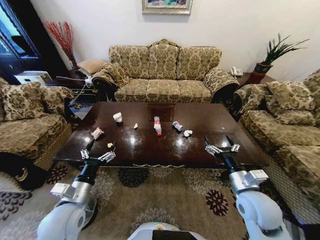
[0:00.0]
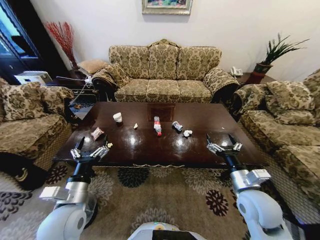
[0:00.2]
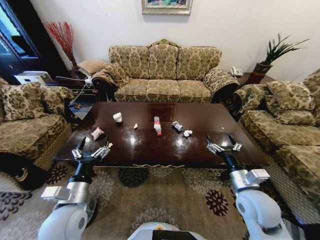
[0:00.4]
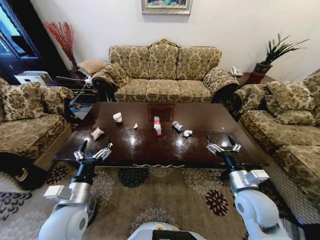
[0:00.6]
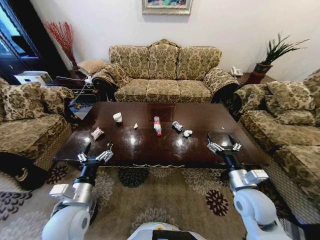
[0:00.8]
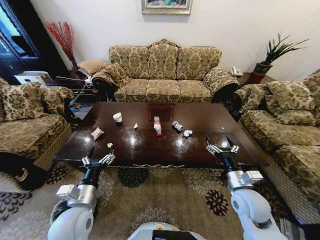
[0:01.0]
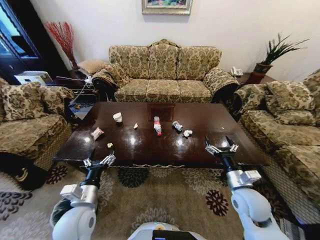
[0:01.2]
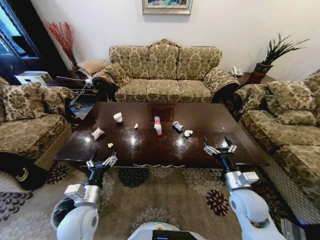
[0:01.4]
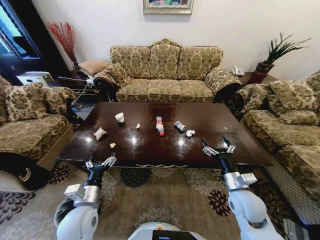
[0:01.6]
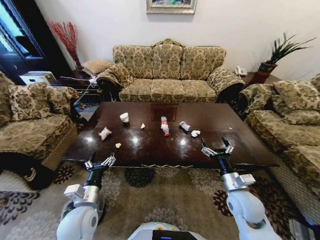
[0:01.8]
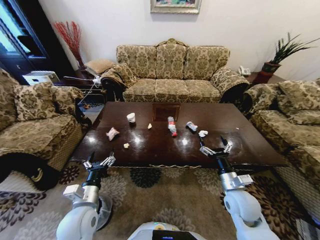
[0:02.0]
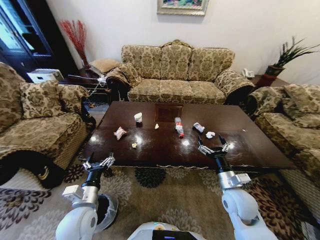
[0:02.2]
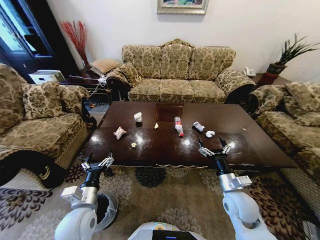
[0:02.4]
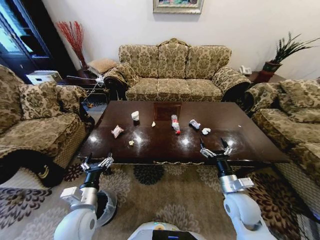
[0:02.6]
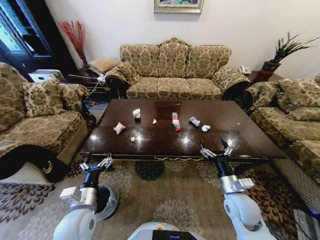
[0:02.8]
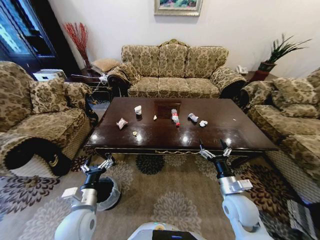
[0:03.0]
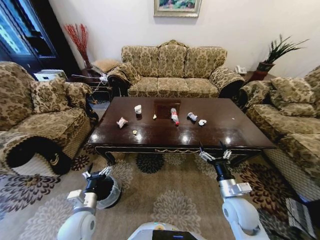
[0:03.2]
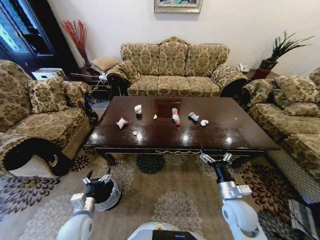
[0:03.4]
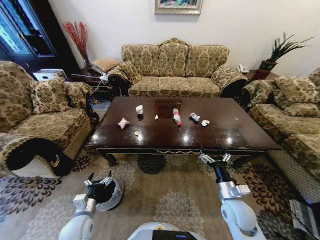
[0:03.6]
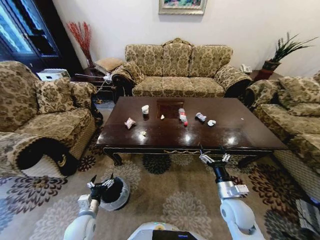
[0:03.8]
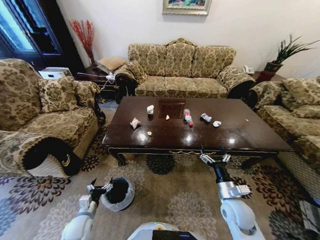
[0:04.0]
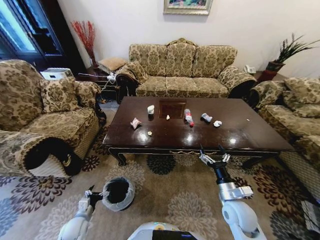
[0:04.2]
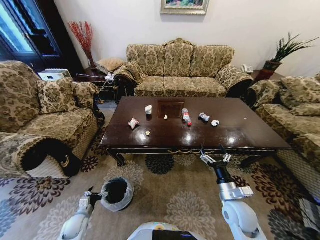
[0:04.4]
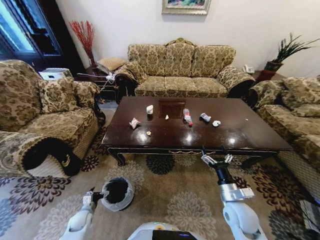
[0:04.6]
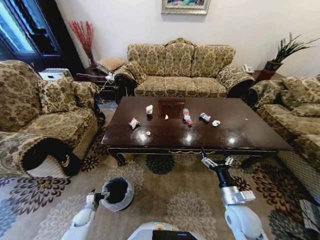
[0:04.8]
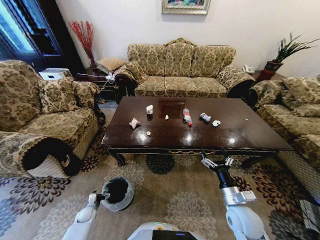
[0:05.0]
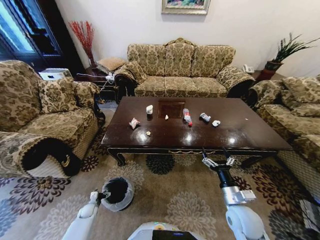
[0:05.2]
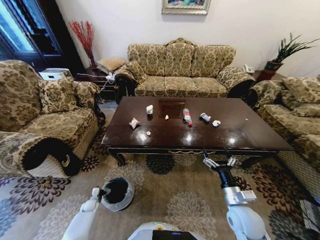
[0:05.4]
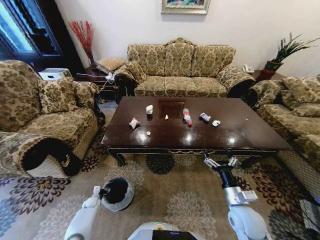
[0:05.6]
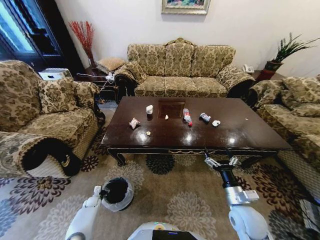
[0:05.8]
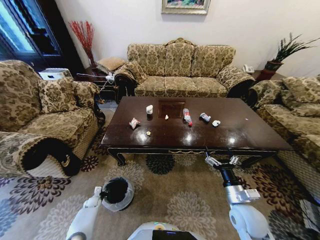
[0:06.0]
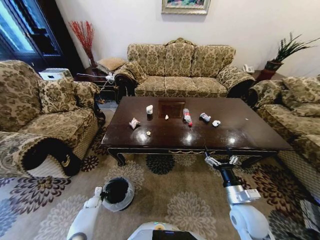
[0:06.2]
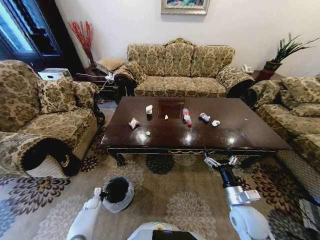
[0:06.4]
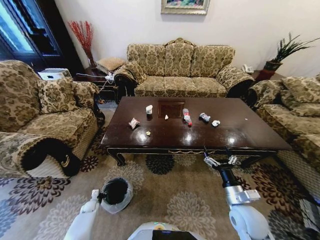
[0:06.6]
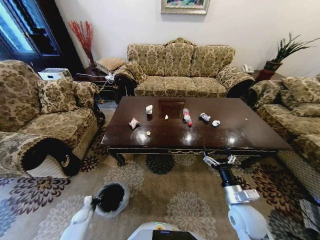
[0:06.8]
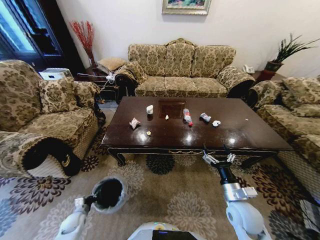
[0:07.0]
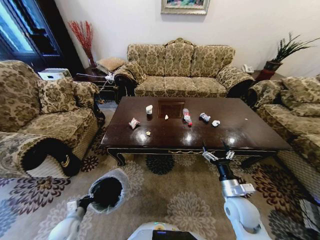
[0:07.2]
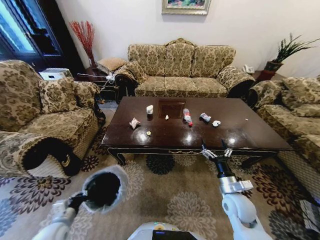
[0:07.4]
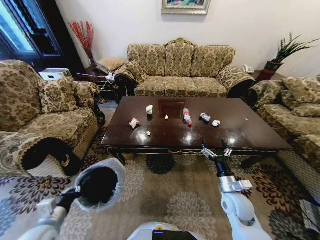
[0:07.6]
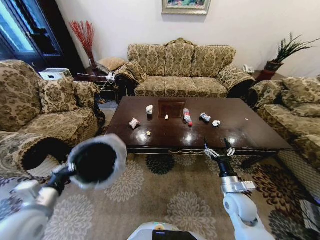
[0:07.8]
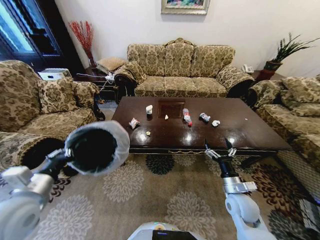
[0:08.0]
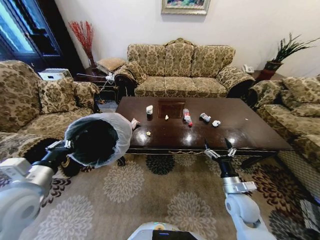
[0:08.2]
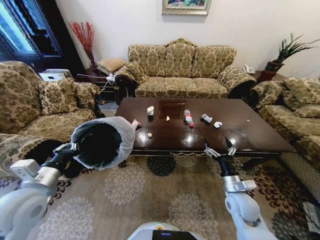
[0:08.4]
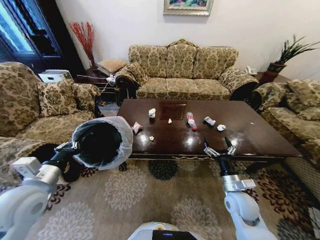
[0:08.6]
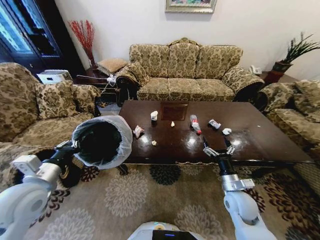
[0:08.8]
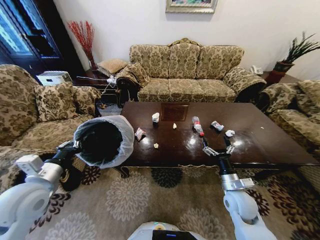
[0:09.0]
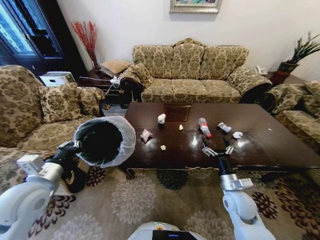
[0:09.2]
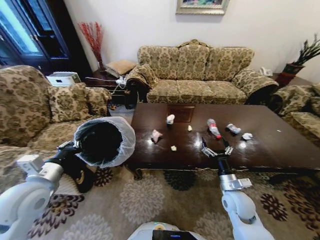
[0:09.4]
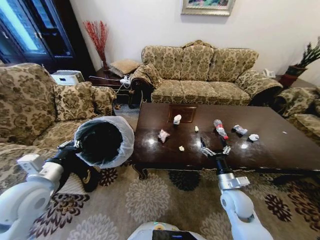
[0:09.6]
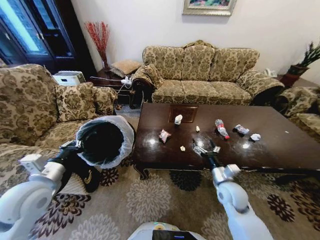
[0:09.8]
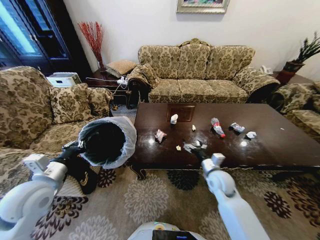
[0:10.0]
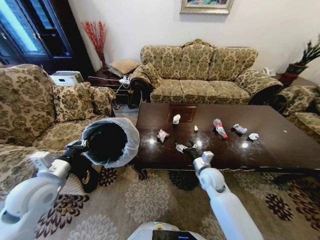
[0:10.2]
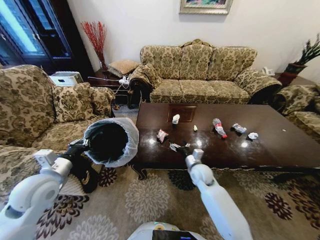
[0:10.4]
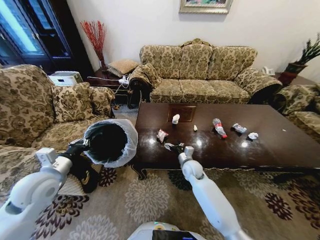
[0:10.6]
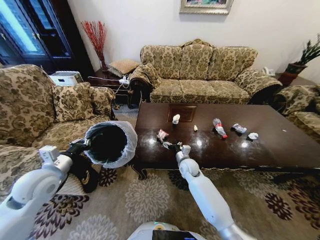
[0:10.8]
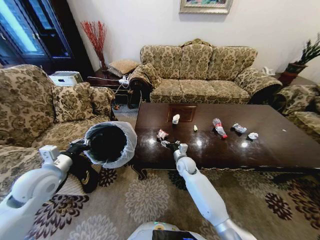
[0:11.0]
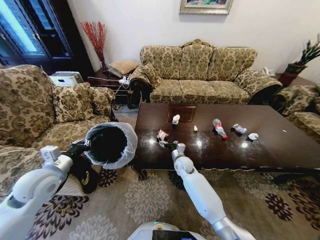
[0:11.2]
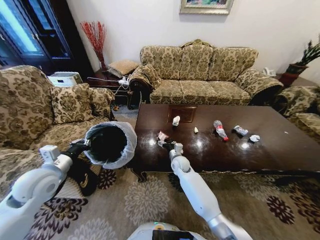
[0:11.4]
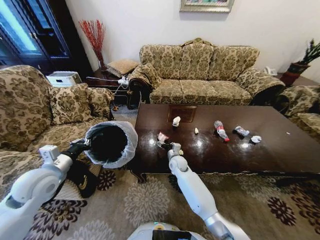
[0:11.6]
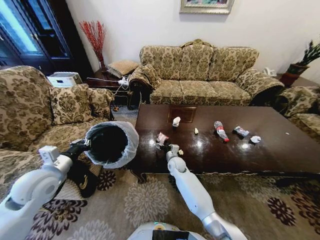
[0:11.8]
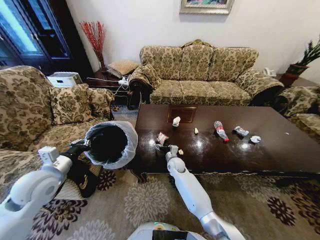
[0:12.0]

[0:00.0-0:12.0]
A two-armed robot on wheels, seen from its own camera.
Task of the whole recording: Move to the front of the table and place the trash on the table into the trash bin.
0:03.0 to 0:04.4: The left gripper goes about 25 cm downward and to the left.
0:04.4 to 0:06.0: The left gripper heads downward and forward, covering about 15 cm, and closes its fingers.
0:06.0 to 0:07.6: The left gripper heads upward and backward, covering roughly 35 cm, and closes its fingers.
0:07.6 to 0:09.0: The left gripper moves upward and forward, approximately 15 cm.
0:09.0 to 0:10.4: The right gripper heads forward and to the left, covering about 15 cm.
0:10.4 to 0:12.0: The right gripper is displaced to the left, forward and downward by some 15 cm.

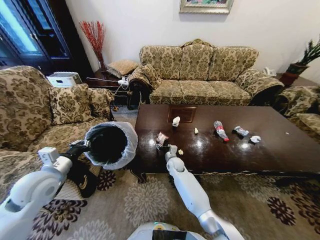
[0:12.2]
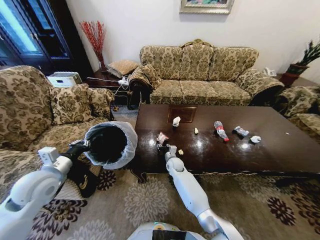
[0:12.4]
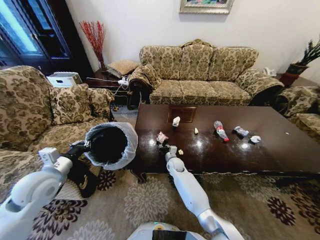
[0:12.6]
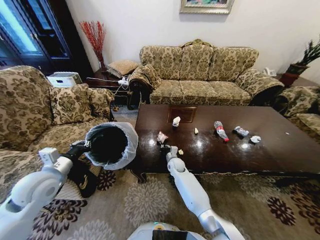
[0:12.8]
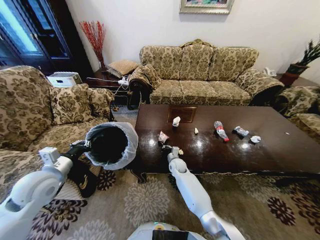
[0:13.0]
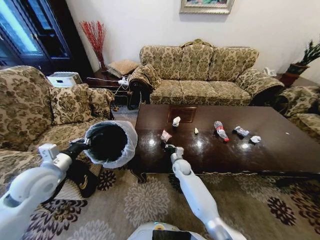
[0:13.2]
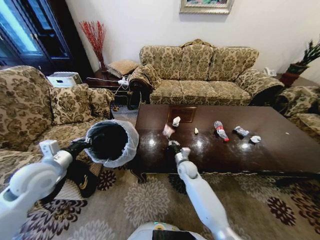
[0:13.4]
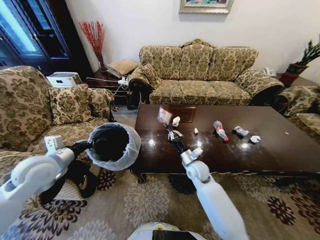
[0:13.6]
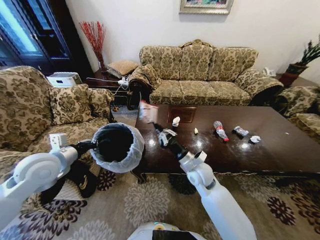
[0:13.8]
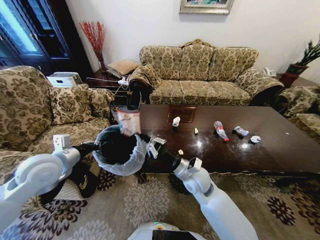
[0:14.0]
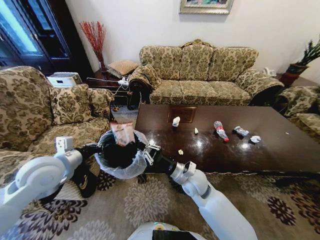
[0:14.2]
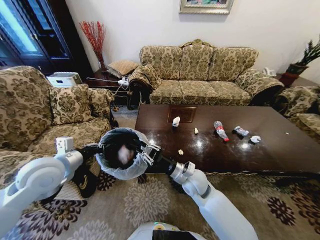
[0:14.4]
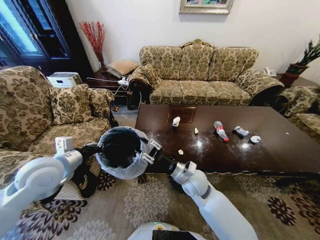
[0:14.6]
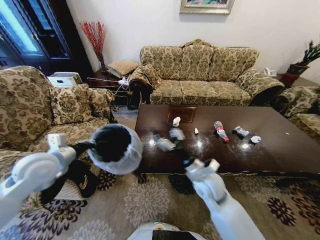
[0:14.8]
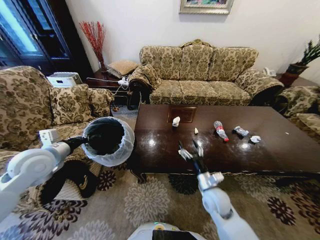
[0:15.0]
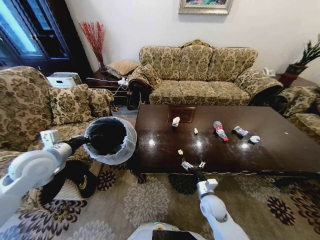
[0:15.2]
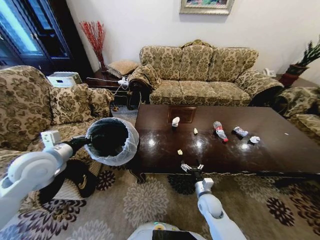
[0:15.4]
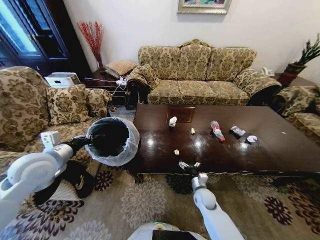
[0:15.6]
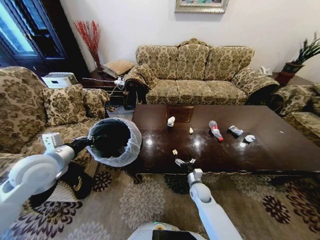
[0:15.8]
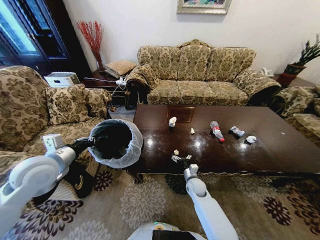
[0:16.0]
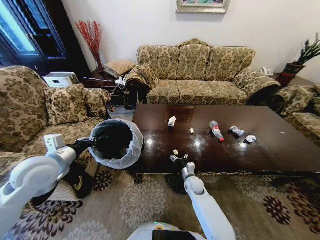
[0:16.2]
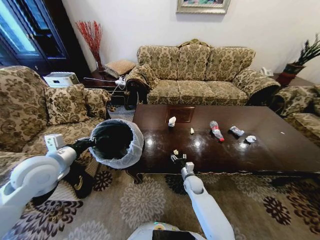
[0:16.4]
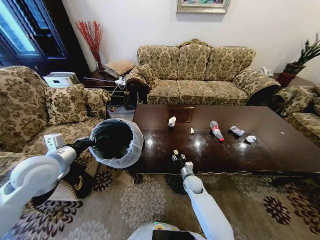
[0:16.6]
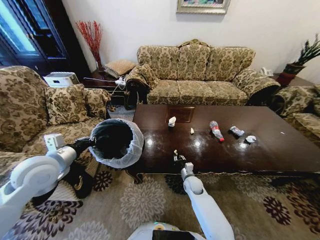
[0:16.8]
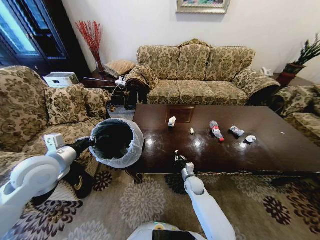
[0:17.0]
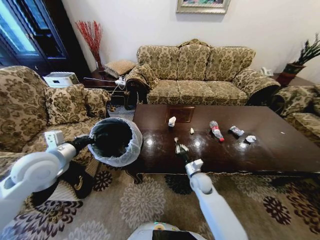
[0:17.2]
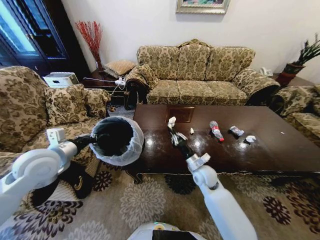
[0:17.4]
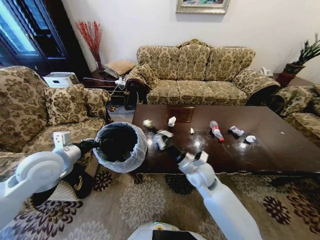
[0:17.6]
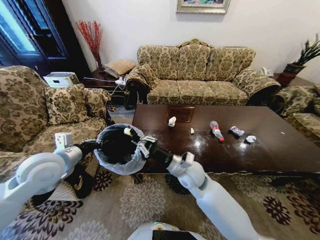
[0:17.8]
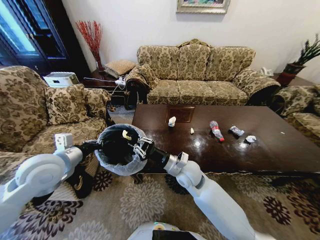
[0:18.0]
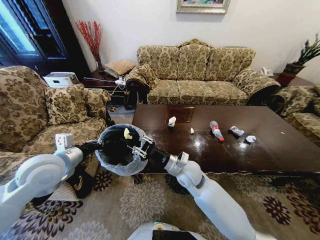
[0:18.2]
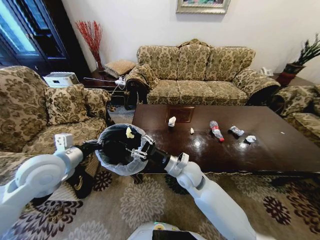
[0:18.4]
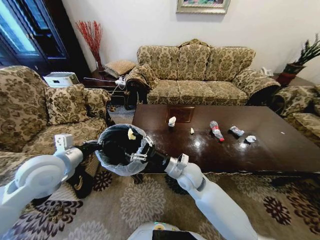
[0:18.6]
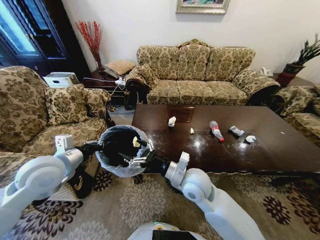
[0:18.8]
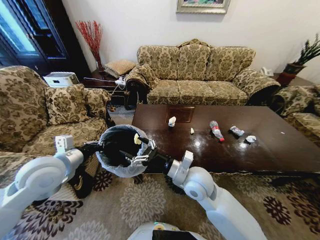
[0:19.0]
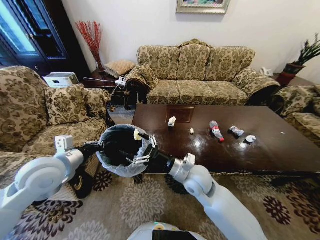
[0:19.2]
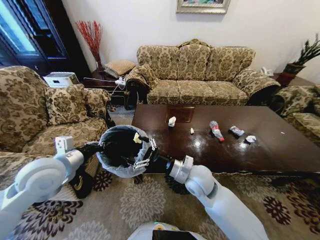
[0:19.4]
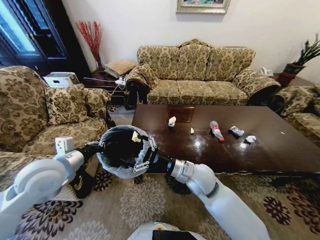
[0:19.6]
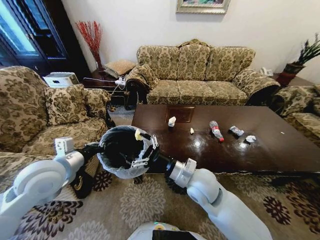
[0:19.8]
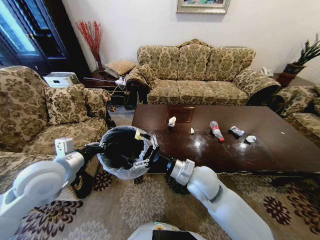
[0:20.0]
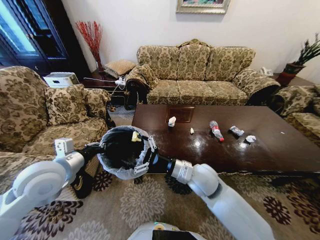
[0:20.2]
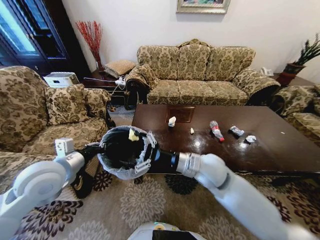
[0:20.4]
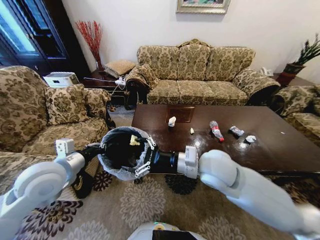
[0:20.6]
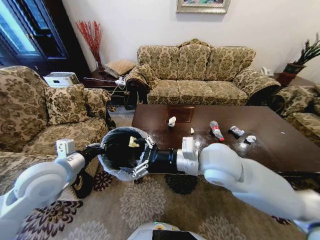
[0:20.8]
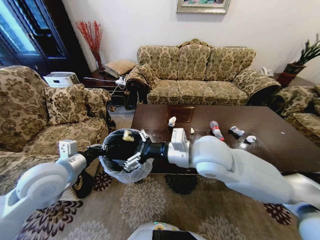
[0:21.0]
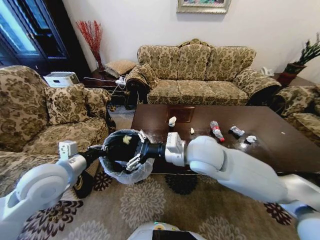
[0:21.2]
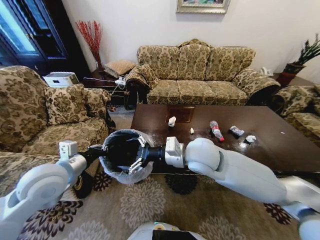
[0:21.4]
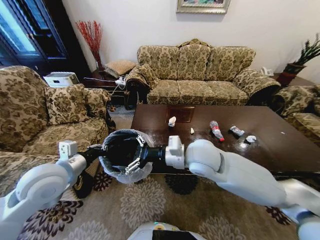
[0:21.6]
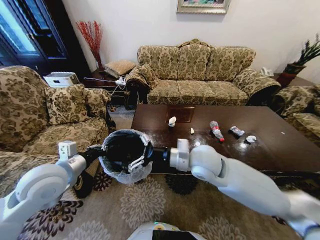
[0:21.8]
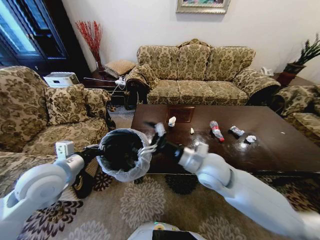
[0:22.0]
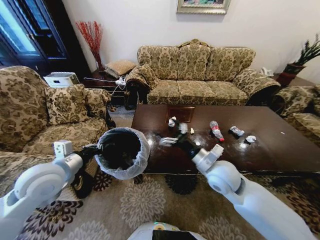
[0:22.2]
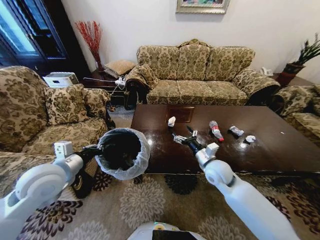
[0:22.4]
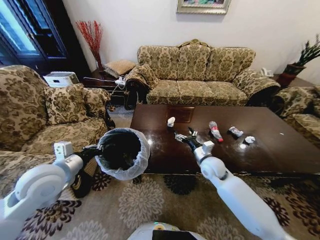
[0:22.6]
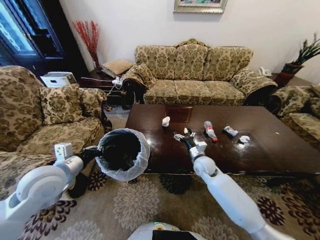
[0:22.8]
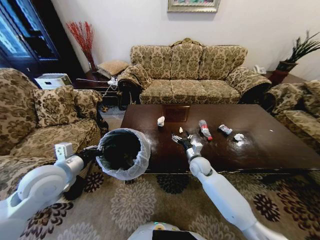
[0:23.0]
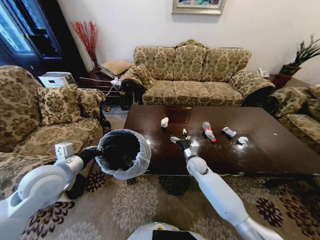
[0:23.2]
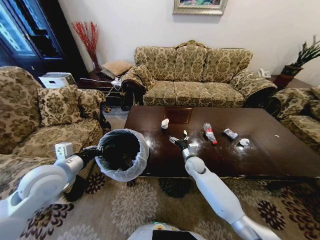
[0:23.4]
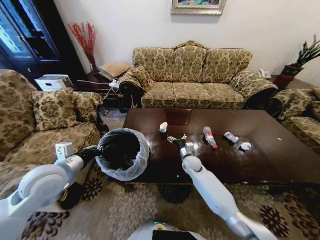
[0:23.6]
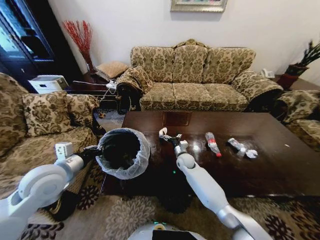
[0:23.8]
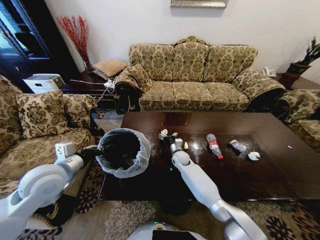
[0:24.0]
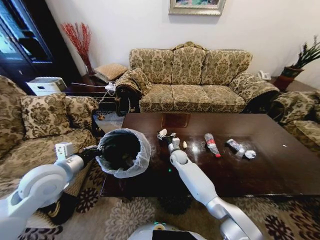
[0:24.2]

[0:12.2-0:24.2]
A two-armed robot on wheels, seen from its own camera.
Task of the whole recording: Move to the front of the table and place the trash on the table into the trash bin.
0:12.2 to 0:13.8: The right gripper goes about 20 cm upward, backward and to the right, and closes its fingers, while the left gripper goes about 5 cm upward.
0:13.8 to 0:15.2: The right gripper is displaced downward, backward and to the right by approximately 20 cm, and opens its fingers.
0:15.2 to 0:16.6: The right gripper goes some 15 cm forward, downward and to the left, and closes its fingers.
0:16.6 to 0:18.2: The right gripper goes roughly 20 cm upward.
0:18.2 to 0:19.8: The right gripper travels backward and upward by approximately 10 cm, and opens its fingers.
0:19.8 to 0:21.2: The right gripper travels upward by about 10 cm.
0:21.2 to 0:22.6: The right gripper heads downward and to the right, covering about 25 cm.
0:22.6 to 0:24.2: The right gripper moves to the left, forward and downward, approximately 20 cm.
